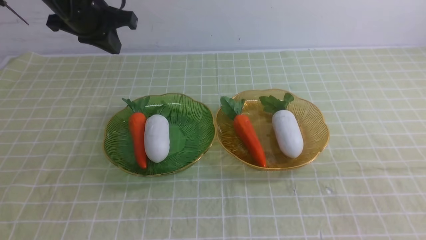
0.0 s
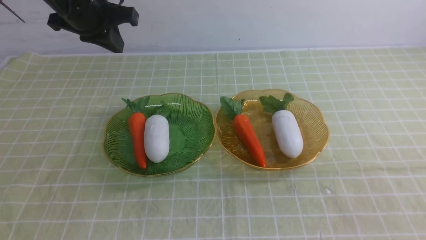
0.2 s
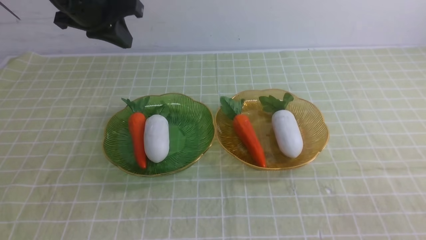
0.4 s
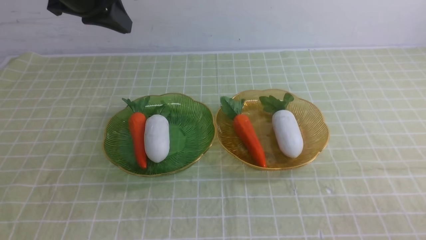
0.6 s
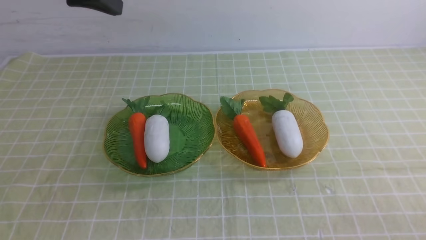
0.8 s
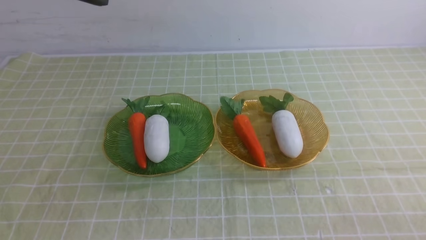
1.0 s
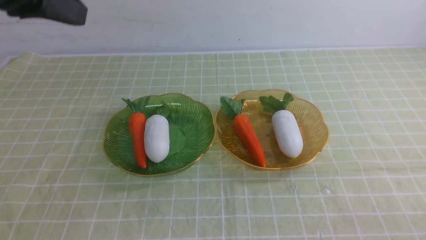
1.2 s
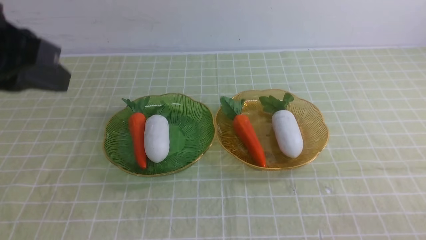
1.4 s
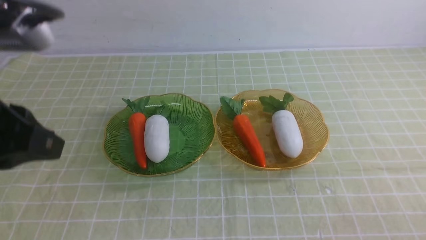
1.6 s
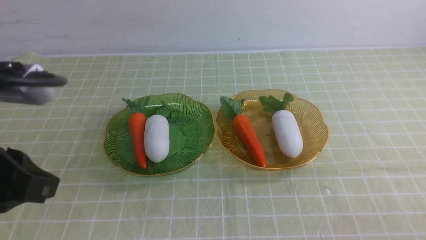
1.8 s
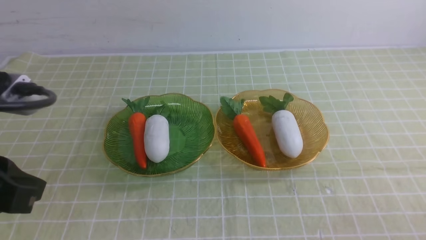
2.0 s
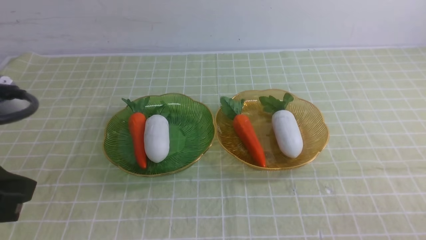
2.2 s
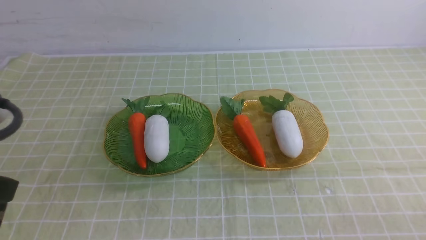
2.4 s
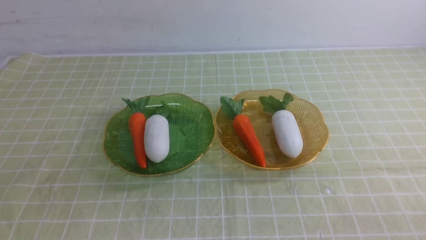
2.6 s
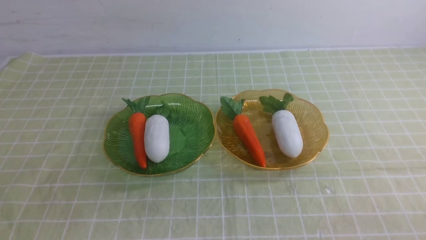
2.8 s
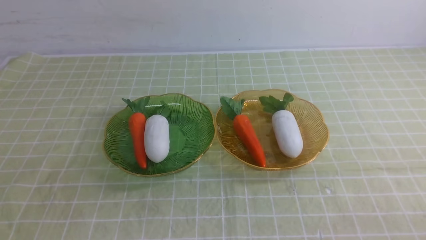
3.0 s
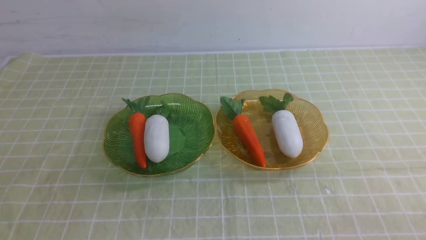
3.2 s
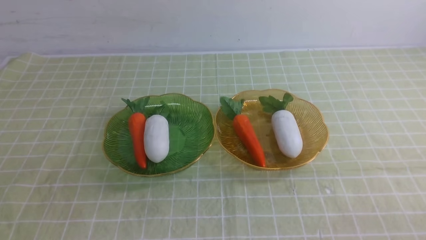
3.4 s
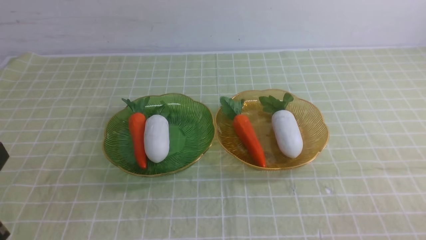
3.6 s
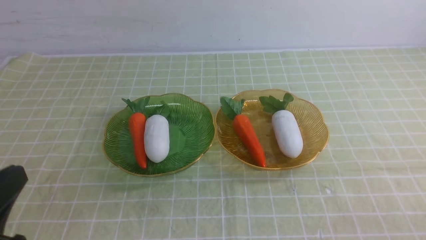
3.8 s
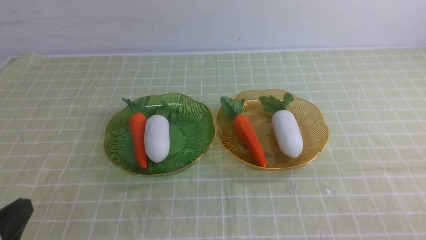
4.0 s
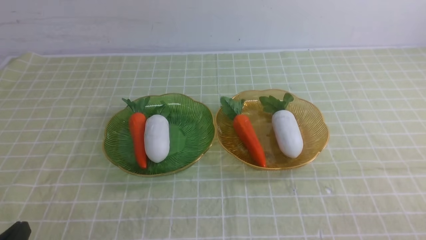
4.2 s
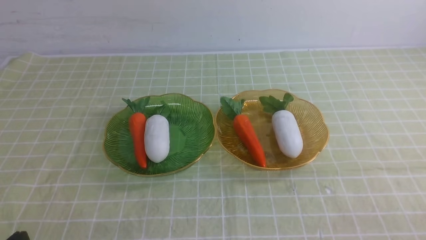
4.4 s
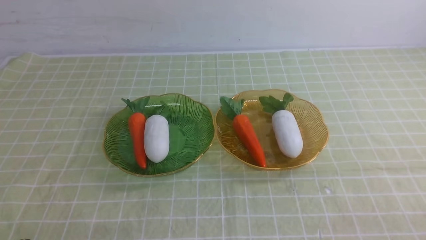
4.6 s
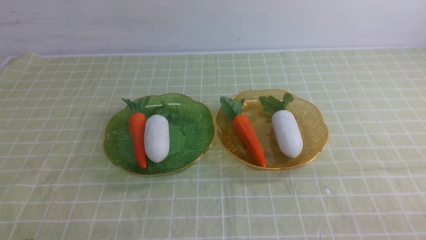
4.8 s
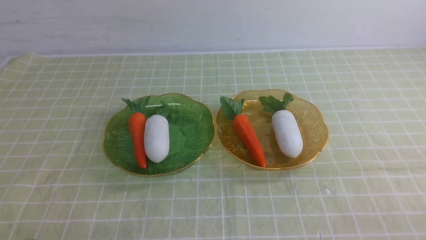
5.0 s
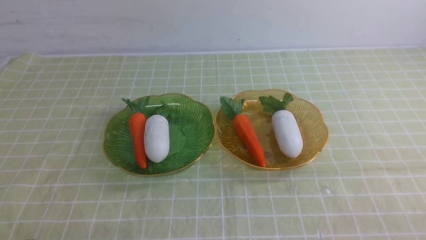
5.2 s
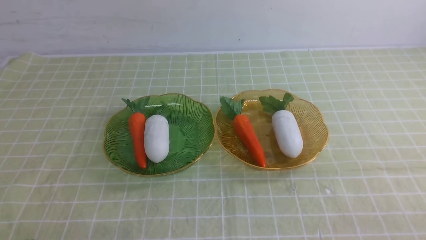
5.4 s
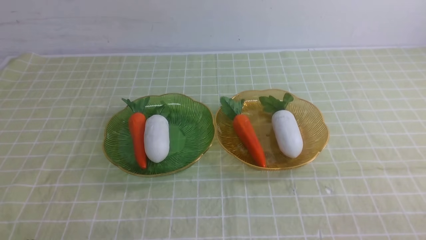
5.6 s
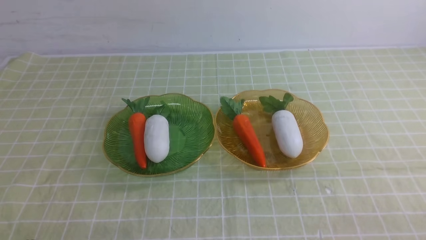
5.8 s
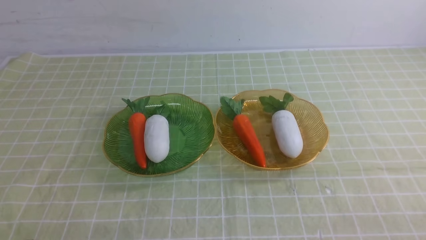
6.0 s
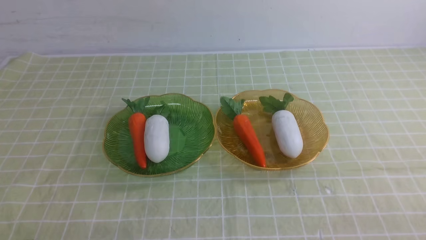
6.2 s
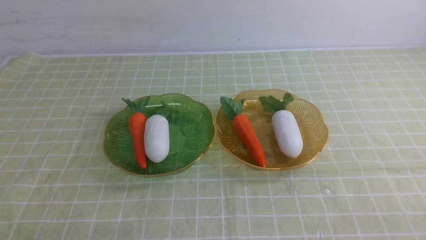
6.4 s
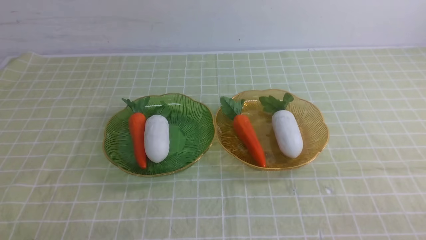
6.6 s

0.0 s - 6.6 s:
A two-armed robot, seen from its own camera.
0.0 s - 1.6 s: The left gripper moves backward, approximately 25 cm.
1.6 s - 3.2 s: The left gripper shifts some 15 cm backward and downward.
5.0 s - 6.6 s: Neither gripper changes place.
